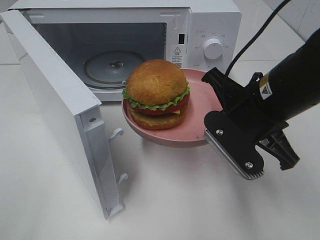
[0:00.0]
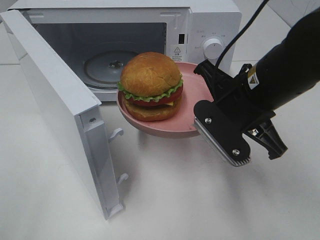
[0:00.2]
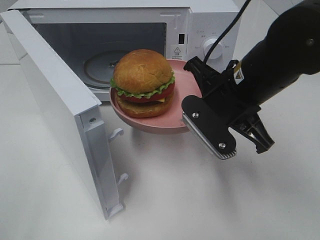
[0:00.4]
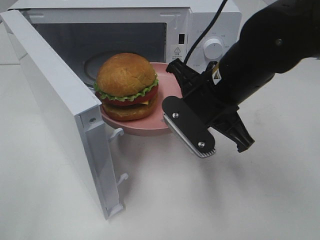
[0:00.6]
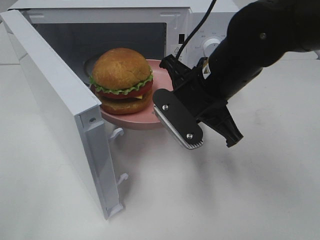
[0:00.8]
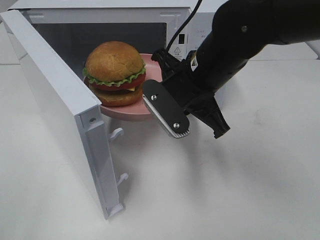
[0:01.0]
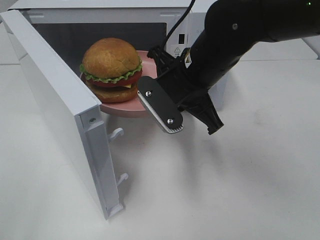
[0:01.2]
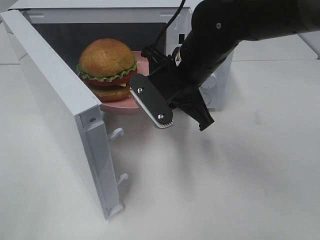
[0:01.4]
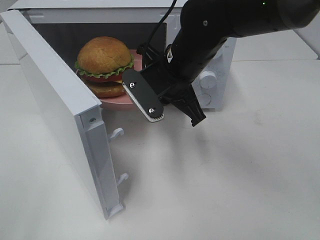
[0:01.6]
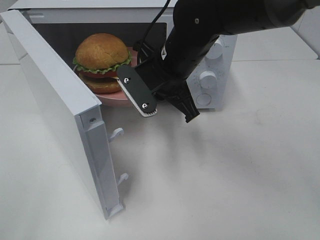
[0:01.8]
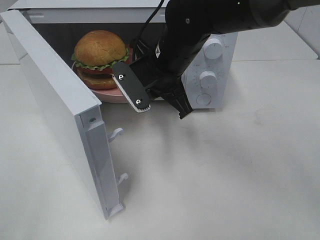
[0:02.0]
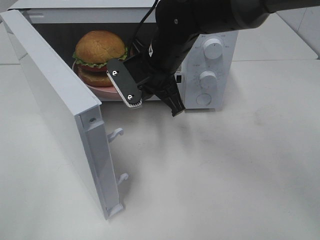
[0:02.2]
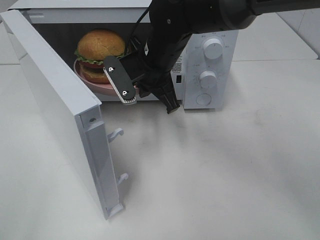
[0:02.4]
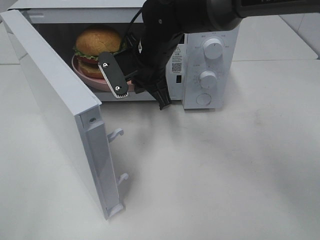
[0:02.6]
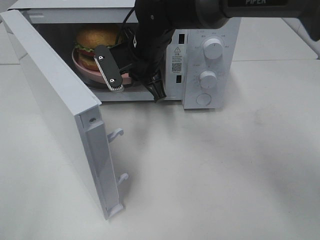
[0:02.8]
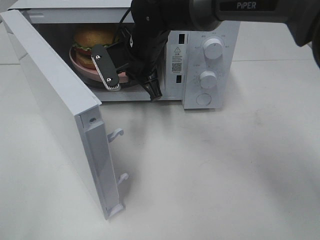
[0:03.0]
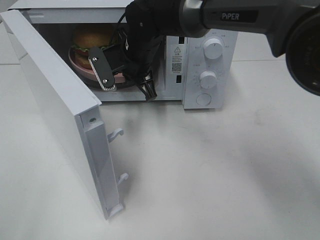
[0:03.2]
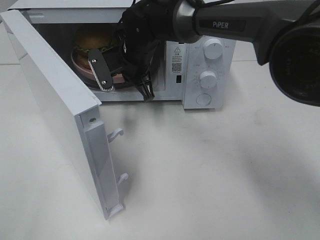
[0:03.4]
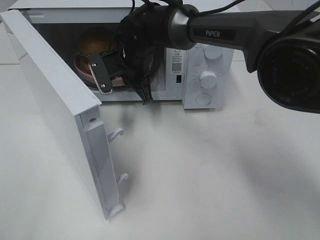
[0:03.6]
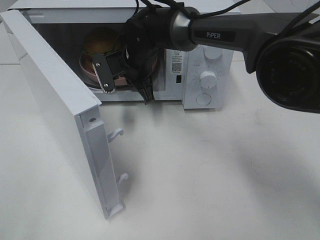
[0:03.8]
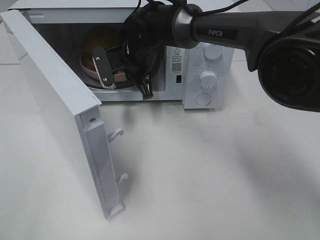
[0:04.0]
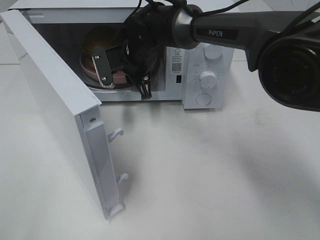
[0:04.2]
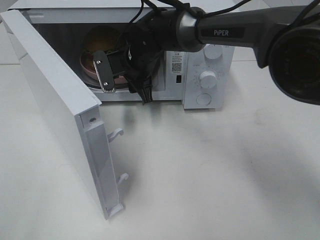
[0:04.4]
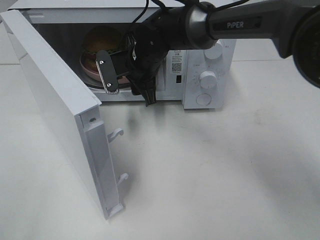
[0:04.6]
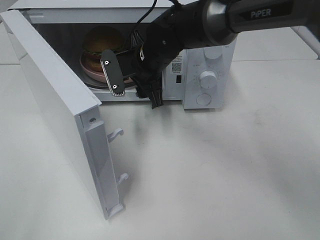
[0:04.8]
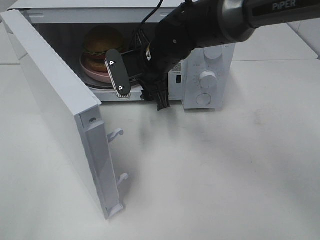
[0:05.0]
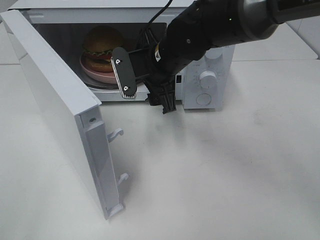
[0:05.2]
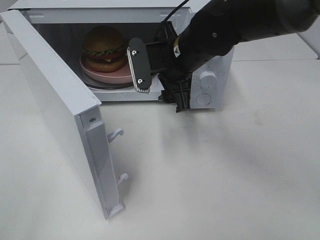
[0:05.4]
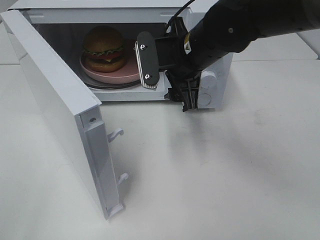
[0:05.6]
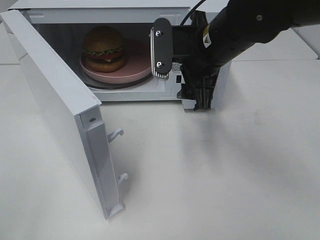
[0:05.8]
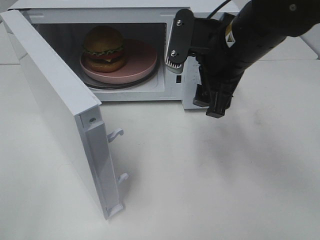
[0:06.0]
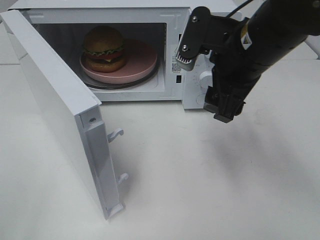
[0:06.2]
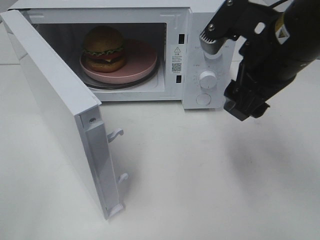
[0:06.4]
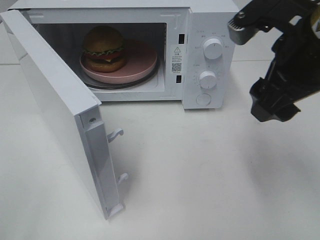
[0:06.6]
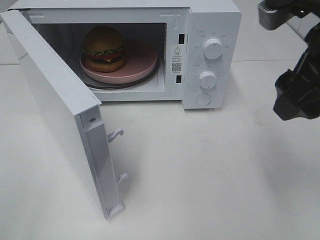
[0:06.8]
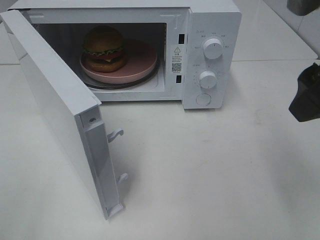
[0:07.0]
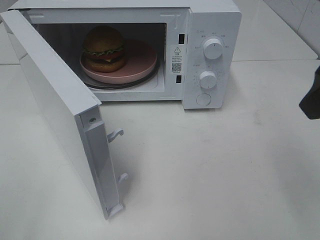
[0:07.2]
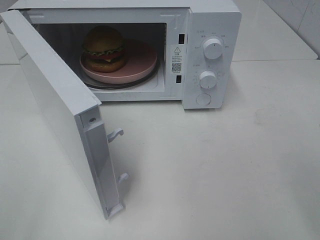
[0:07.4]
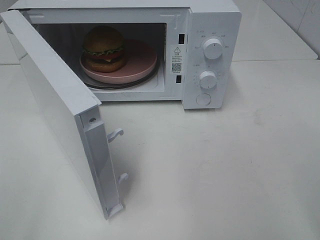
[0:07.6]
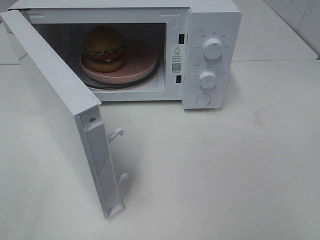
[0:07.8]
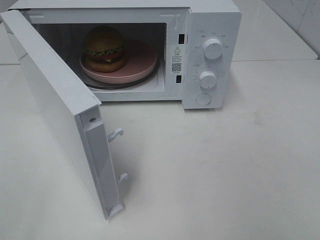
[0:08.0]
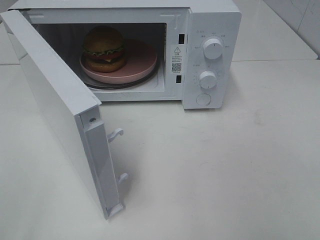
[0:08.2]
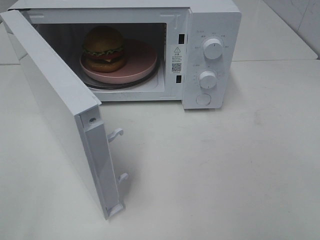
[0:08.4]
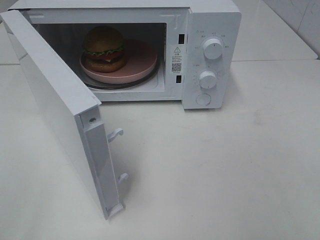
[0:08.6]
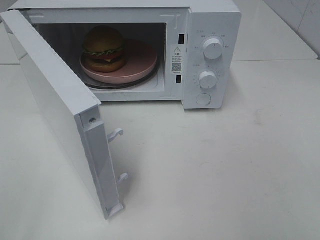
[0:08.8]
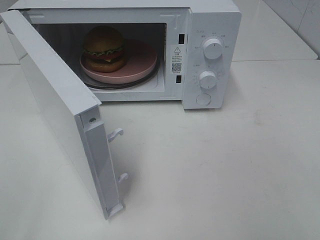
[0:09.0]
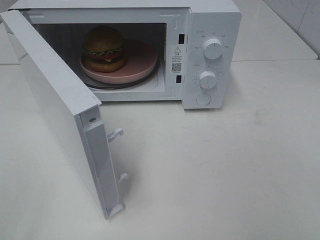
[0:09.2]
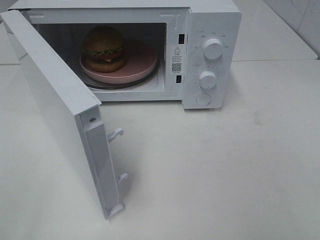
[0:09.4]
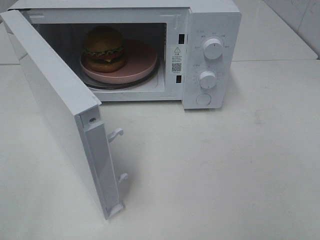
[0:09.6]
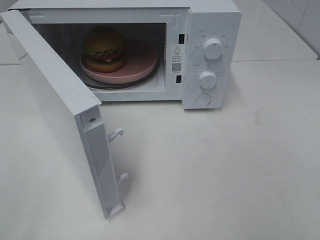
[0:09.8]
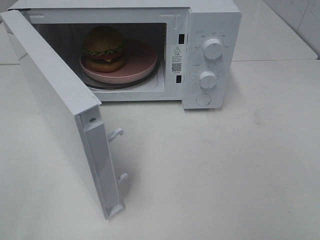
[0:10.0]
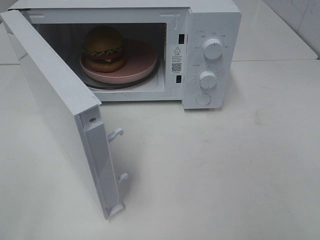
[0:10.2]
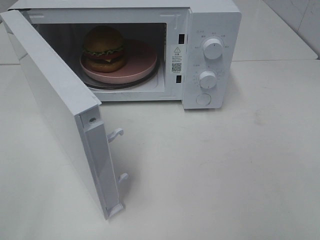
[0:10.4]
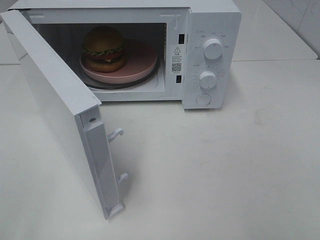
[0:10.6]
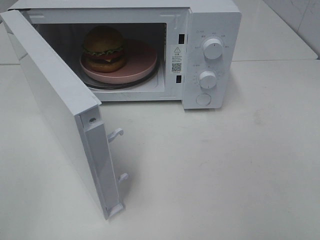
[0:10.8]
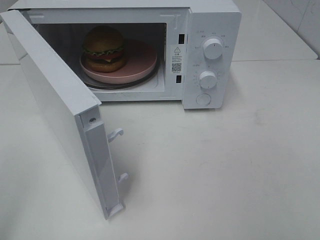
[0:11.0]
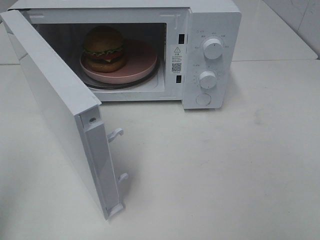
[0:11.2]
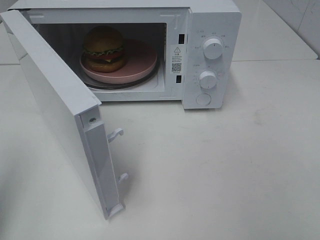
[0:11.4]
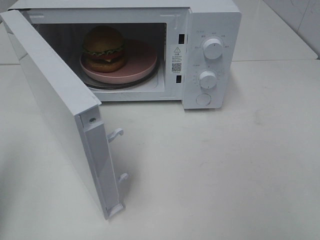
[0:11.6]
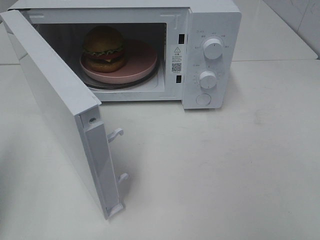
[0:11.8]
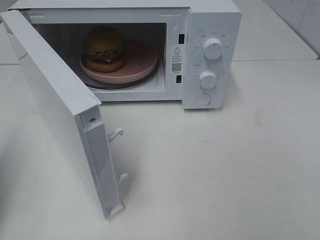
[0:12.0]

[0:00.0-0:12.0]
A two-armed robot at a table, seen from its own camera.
Task of the whole recording: Heat the burger.
Step, 0:00.0 to 0:04.8: Right hand: place the plate in the microwave.
0:00.0 to 0:01.6: The right gripper shifts roughly 15 cm to the left and forward.
0:01.6 to 0:03.0: The right gripper shifts about 10 cm forward and to the left.
0:03.0 to 0:04.4: The right gripper opens up.
0:04.4 to 0:06.0: The right gripper shifts approximately 20 cm backward, to the right and upward.
0:06.0 to 0:07.6: The right gripper shifts about 20 cm backward and to the right.
0:09.0 to 0:10.4: Both grippers stay about where they are.
0:10.4 to 0:12.0: The left gripper moves forward, approximately 15 cm, and closes.

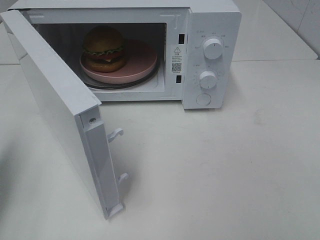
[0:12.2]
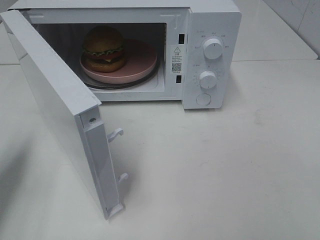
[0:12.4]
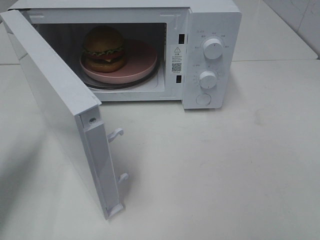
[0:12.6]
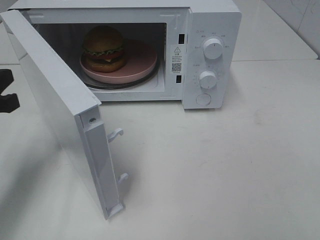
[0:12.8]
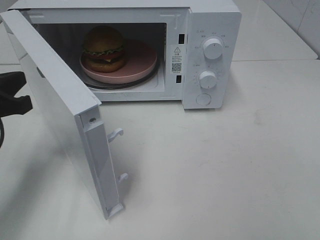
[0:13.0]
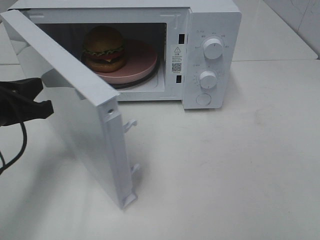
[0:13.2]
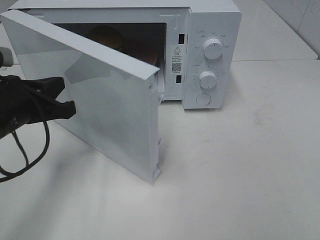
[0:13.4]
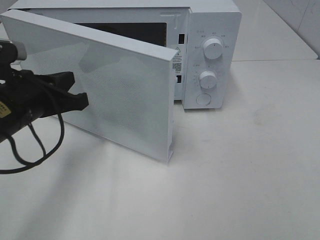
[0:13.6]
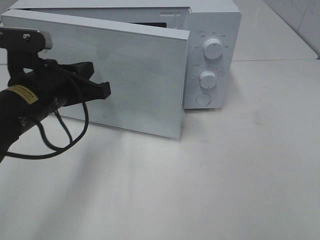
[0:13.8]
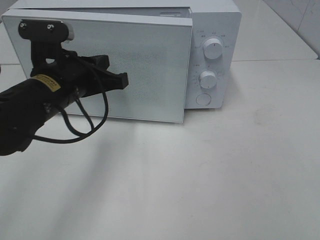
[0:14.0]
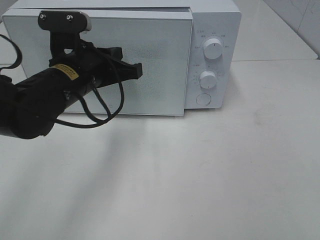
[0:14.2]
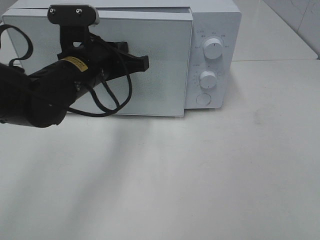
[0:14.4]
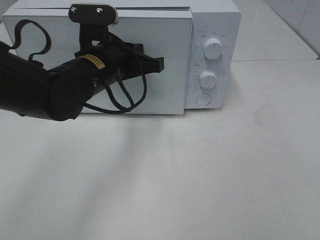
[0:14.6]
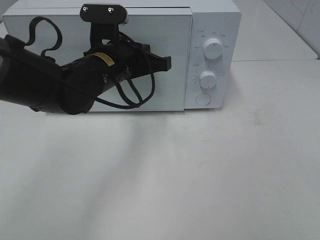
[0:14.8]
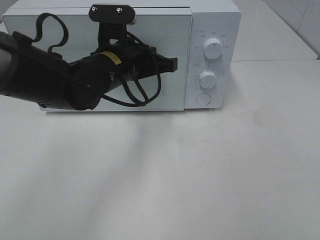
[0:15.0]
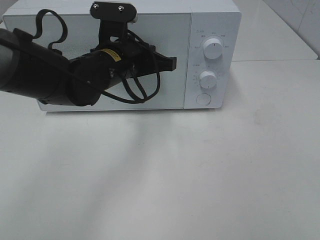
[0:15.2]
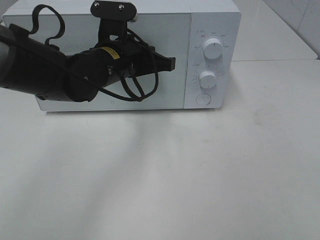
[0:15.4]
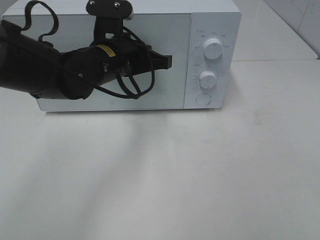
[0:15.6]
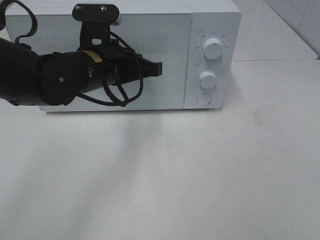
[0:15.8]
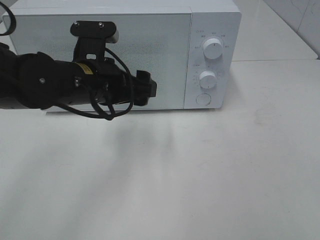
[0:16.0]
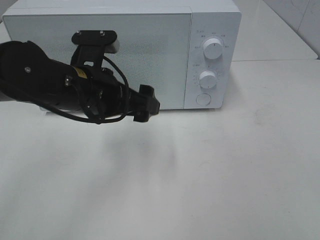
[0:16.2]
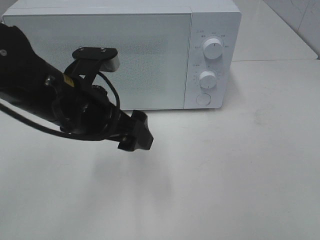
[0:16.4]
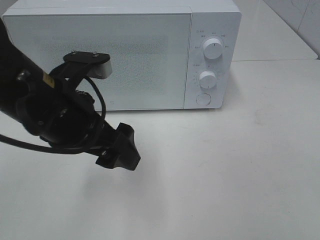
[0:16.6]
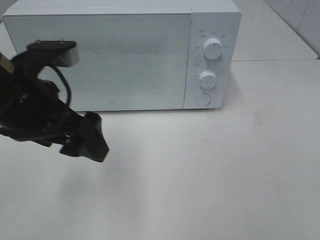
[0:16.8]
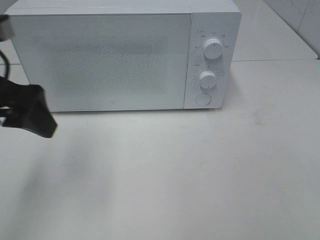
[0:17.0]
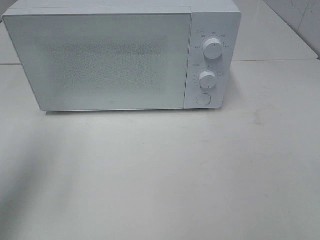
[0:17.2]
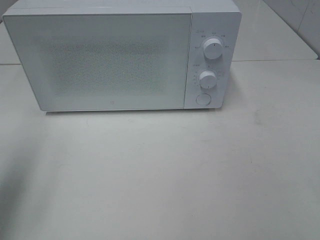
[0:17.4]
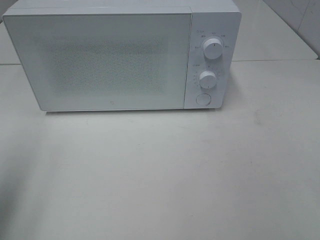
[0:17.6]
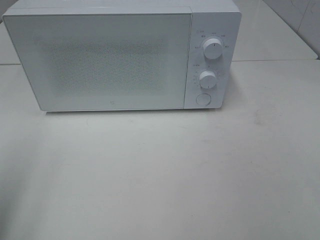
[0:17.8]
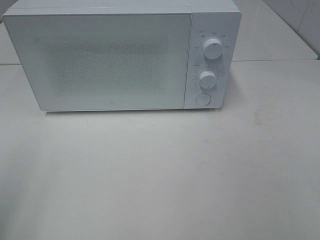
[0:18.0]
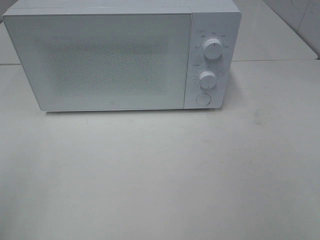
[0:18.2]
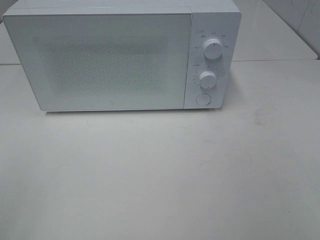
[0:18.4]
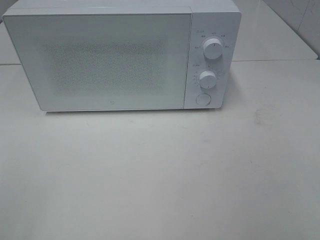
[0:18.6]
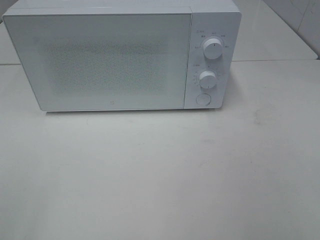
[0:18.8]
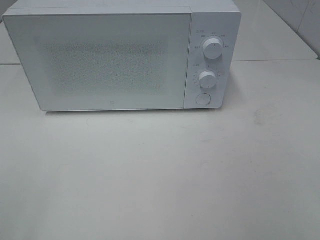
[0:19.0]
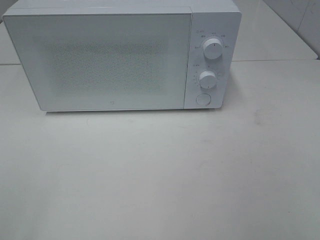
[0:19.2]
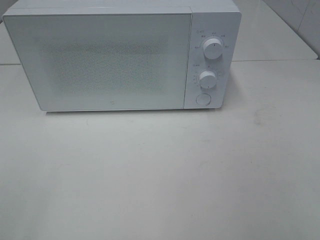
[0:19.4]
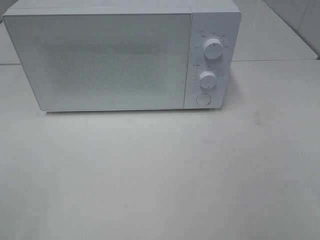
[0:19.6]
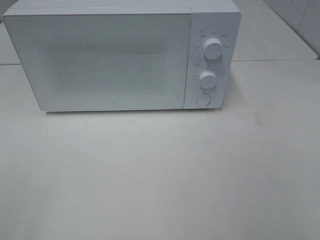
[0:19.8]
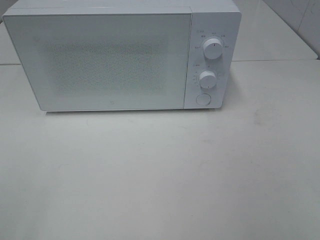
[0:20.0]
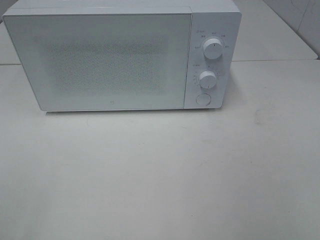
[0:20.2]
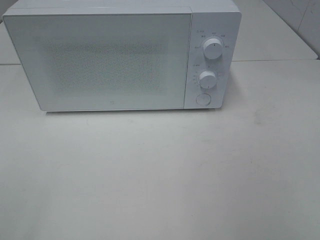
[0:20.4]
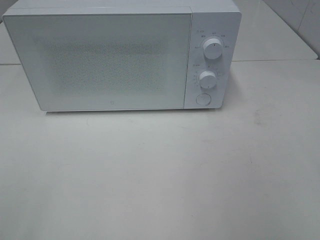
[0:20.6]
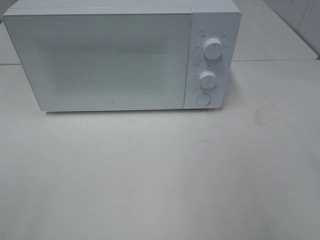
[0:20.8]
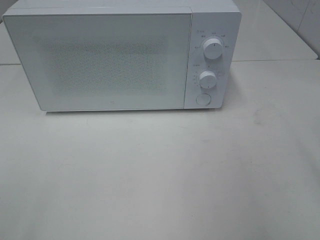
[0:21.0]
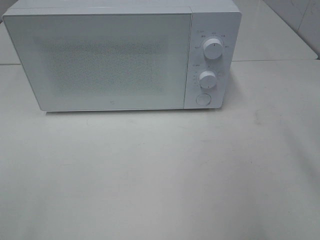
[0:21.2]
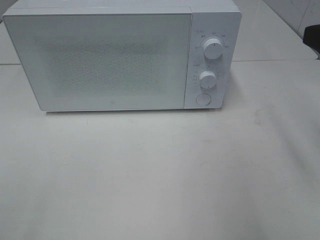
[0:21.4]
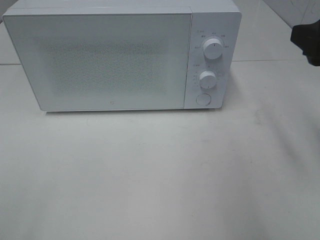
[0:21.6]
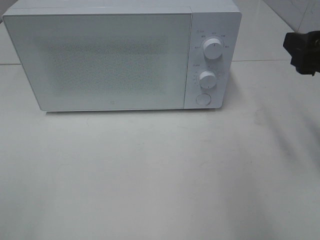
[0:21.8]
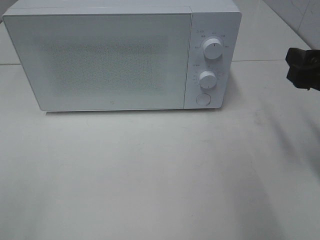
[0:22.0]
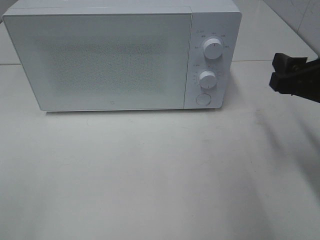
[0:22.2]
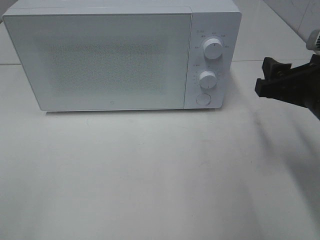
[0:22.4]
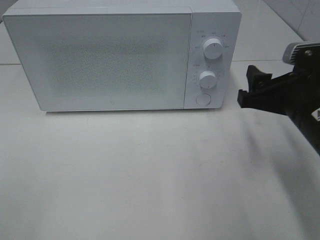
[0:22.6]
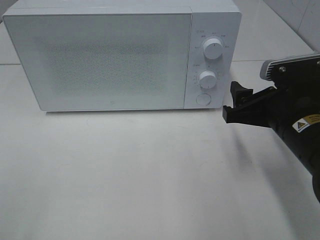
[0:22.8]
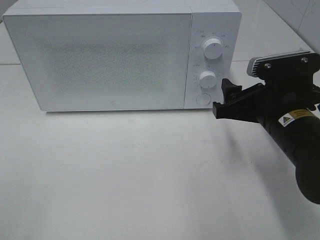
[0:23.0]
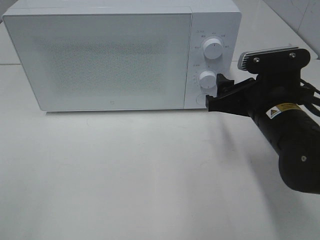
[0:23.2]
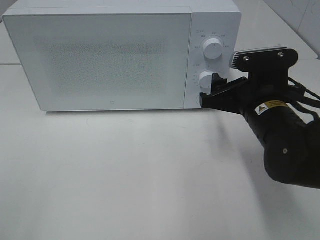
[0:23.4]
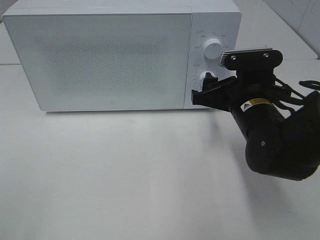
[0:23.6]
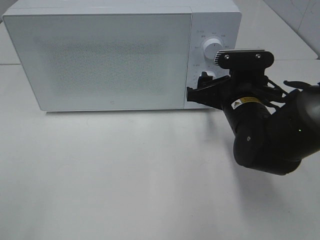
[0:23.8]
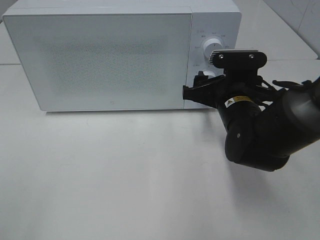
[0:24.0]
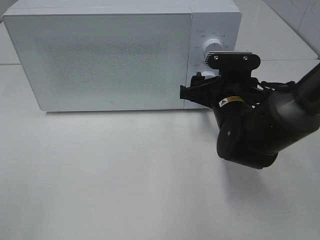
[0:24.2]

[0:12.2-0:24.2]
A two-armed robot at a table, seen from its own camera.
Task of the whole recording: Heat the burger.
Step, 0:12.2 to 0:16.2: Left hand: close the microwave door.
0:12.2 to 0:13.8: The left gripper heads to the right and forward, covering some 20 cm.
0:13.8 to 0:15.2: The left gripper shifts about 10 cm to the right and forward.
0:15.2 to 0:16.6: The left gripper is displaced backward and to the left by approximately 15 cm, and opens up.
0:16.6 to 0:18.2: The left gripper heads to the left and backward, covering roughly 25 cm.
0:21.2 to 0:22.6: The right gripper moves downward, to the left and forward, approximately 15 cm.
0:22.6 to 0:24.2: The right gripper moves forward, to the left and downward, approximately 15 cm.
